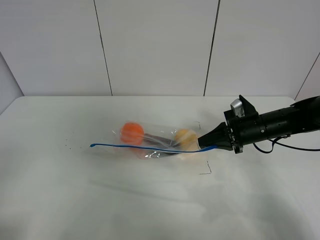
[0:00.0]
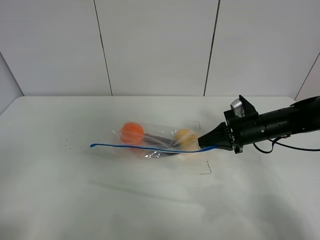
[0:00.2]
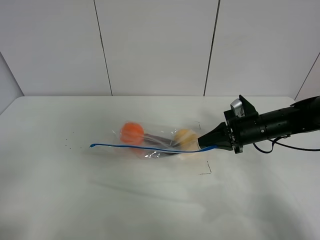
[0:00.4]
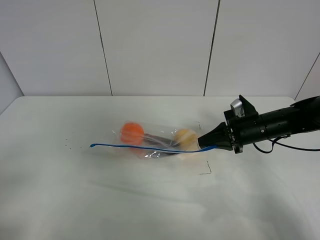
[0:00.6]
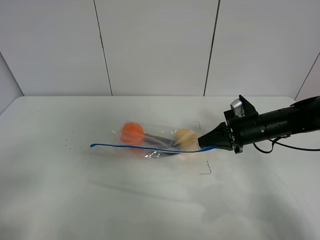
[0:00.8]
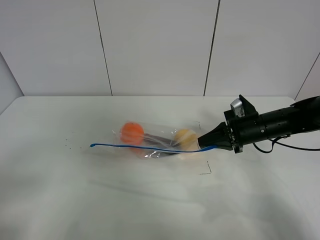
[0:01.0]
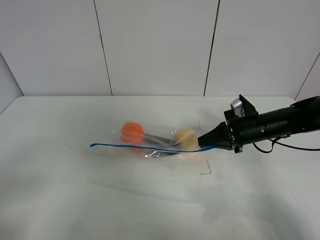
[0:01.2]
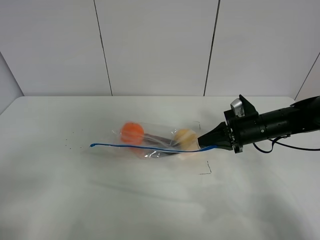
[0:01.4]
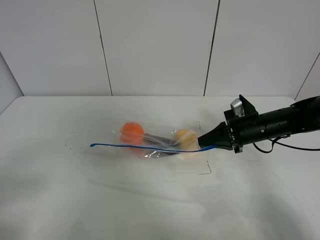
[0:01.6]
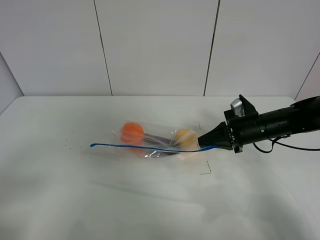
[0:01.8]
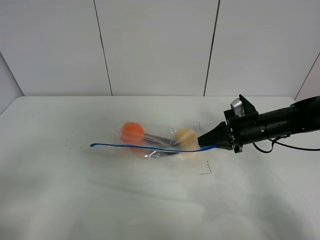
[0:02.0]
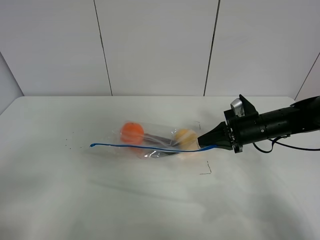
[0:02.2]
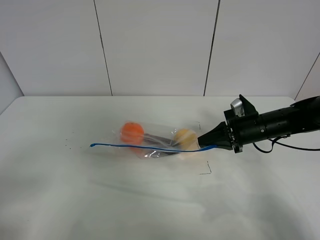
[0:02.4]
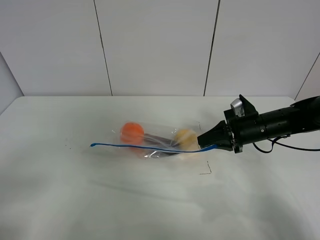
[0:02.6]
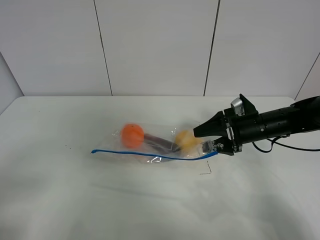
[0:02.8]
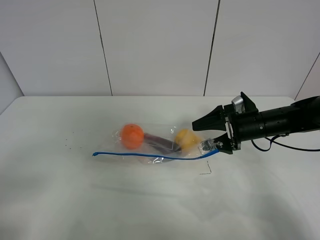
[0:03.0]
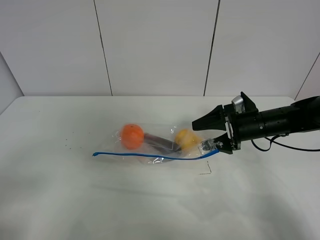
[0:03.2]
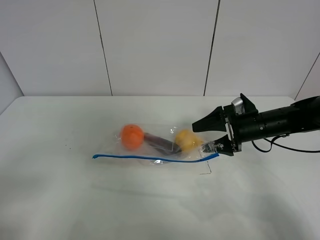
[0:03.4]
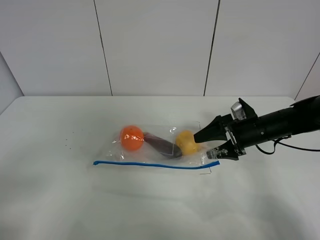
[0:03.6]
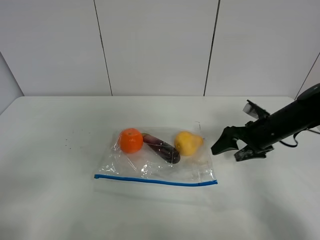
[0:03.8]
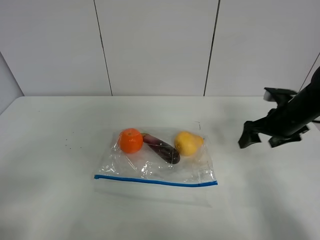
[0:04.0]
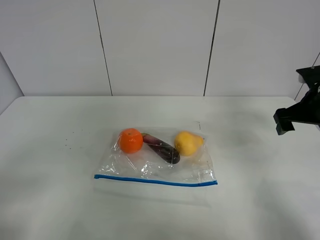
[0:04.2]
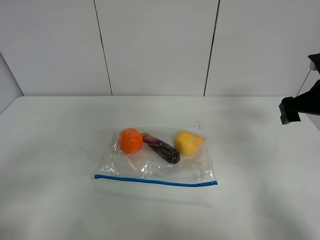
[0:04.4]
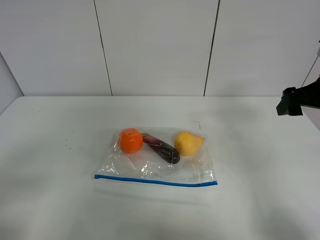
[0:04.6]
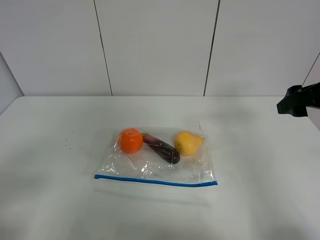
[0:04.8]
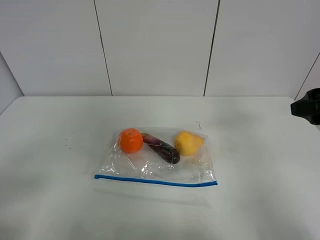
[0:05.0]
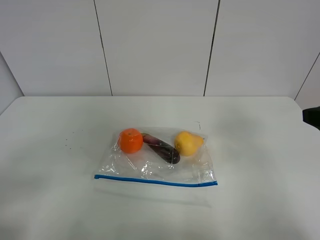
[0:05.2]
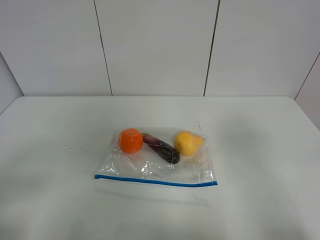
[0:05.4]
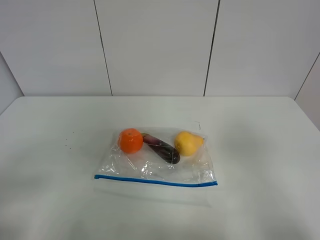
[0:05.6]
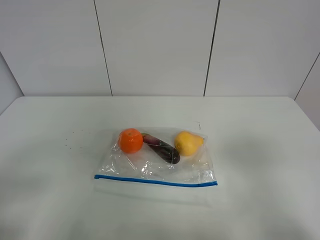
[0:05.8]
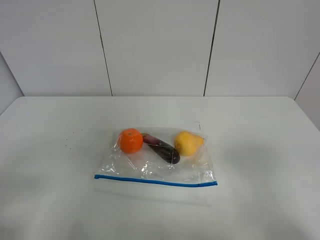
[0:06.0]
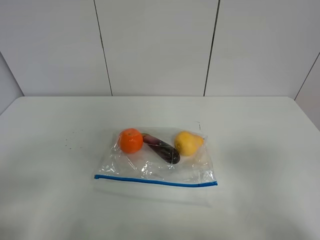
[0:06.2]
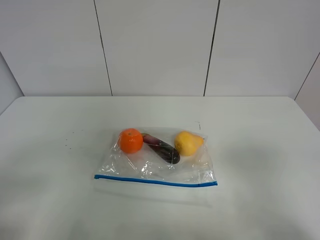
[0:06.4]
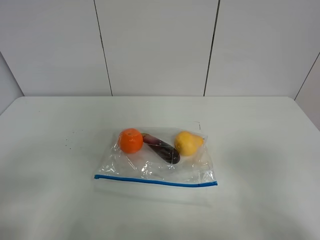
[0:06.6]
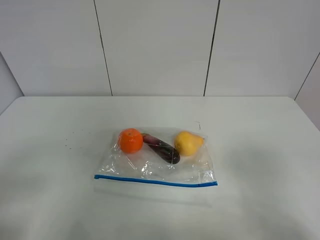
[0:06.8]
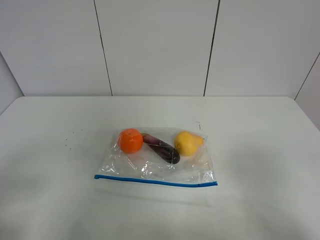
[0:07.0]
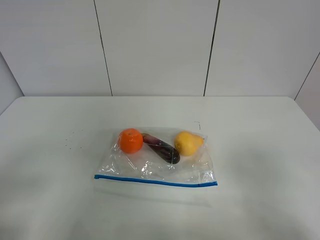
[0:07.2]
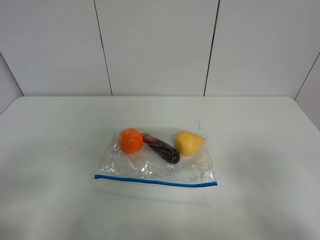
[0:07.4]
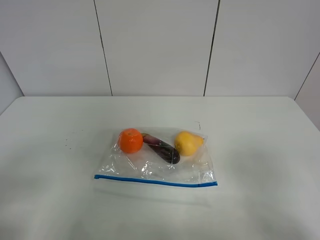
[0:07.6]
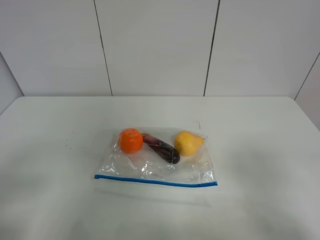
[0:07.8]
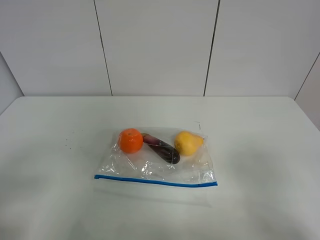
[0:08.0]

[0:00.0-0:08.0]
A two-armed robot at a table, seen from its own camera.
Step, 0:00.0 to 0:04.0: Place the fruit bag with right gripper.
0:01.6 to 0:03.2: The right gripper opens its fingers.
0:03.2 to 0:04.8: The right gripper heads upward, backward and to the right, covering about 20 cm.
0:04.8 to 0:06.4: The right gripper heads backward, covering approximately 25 cm.

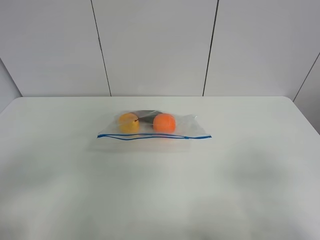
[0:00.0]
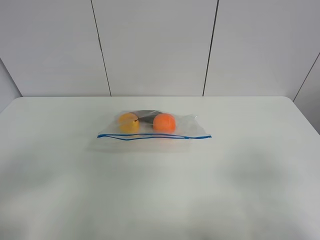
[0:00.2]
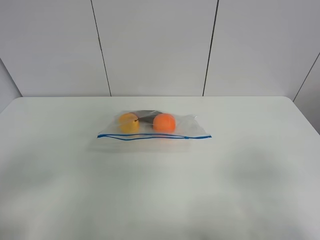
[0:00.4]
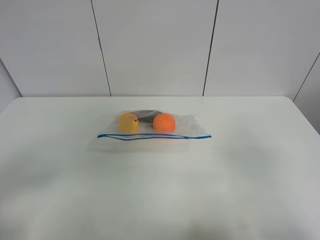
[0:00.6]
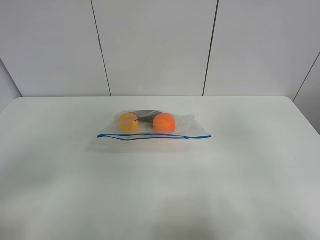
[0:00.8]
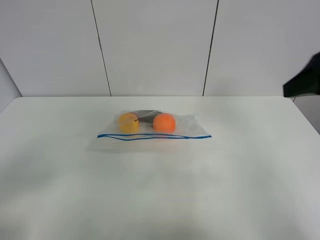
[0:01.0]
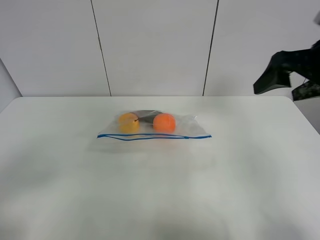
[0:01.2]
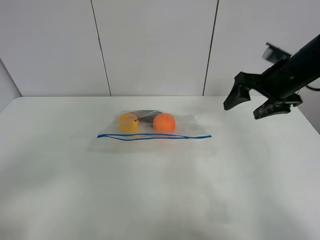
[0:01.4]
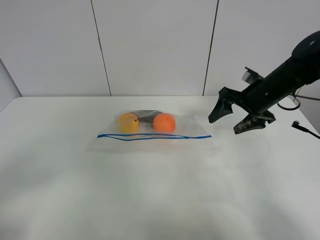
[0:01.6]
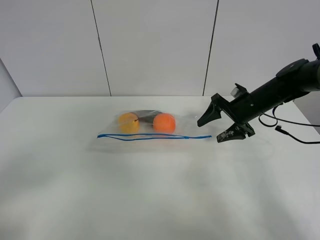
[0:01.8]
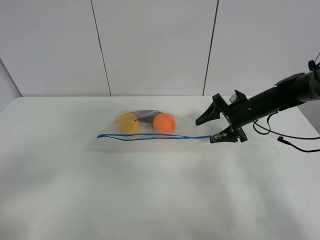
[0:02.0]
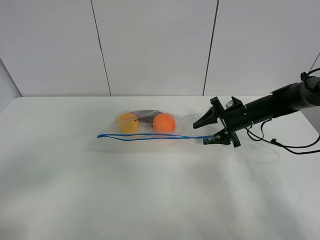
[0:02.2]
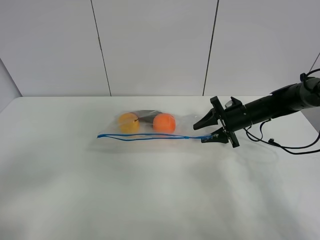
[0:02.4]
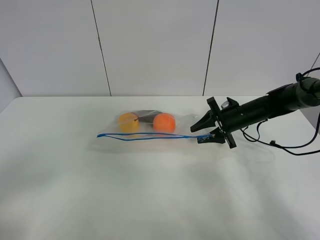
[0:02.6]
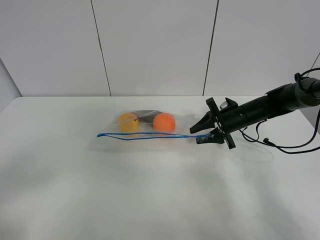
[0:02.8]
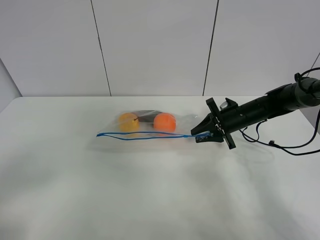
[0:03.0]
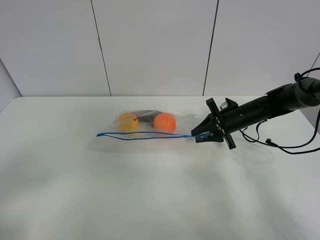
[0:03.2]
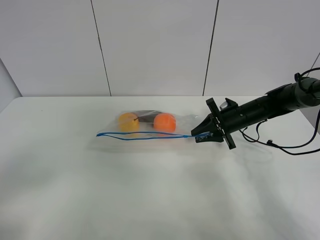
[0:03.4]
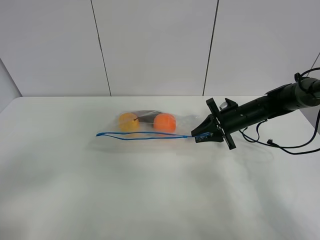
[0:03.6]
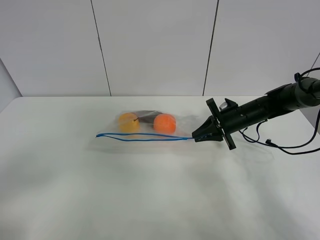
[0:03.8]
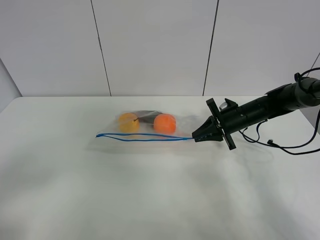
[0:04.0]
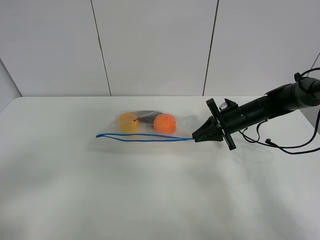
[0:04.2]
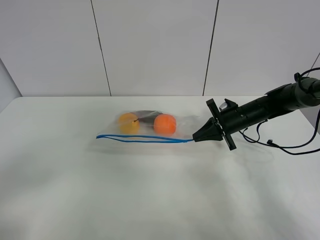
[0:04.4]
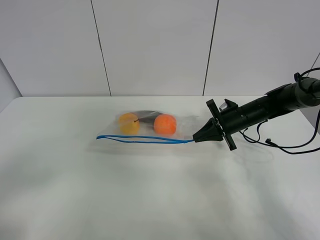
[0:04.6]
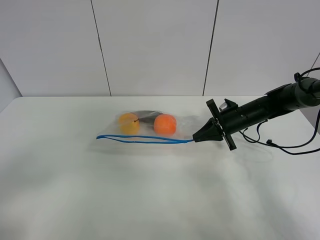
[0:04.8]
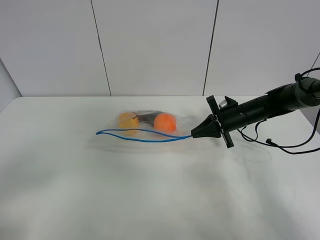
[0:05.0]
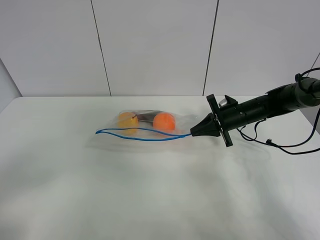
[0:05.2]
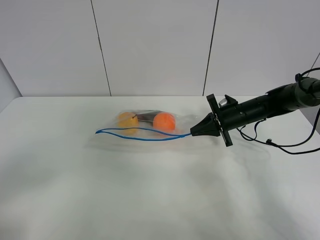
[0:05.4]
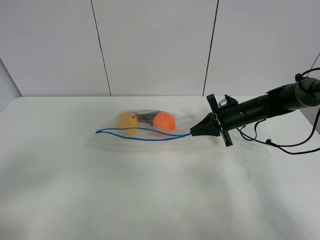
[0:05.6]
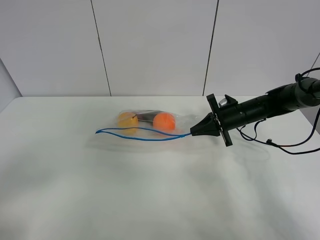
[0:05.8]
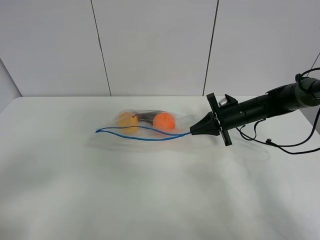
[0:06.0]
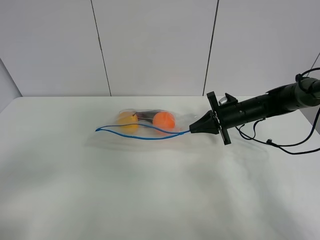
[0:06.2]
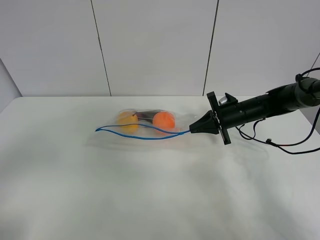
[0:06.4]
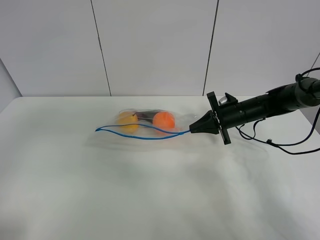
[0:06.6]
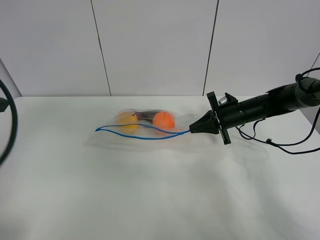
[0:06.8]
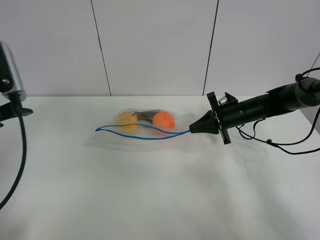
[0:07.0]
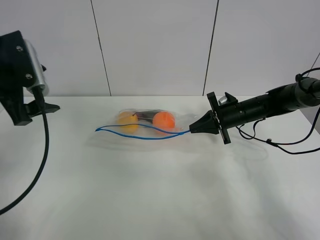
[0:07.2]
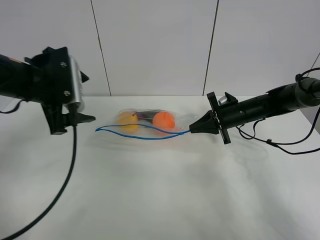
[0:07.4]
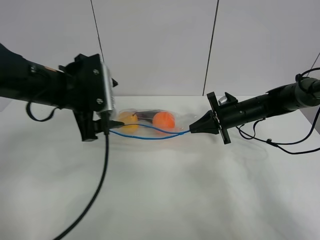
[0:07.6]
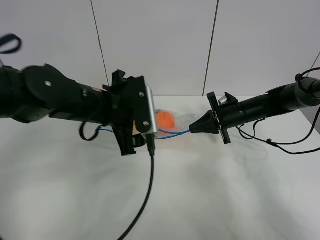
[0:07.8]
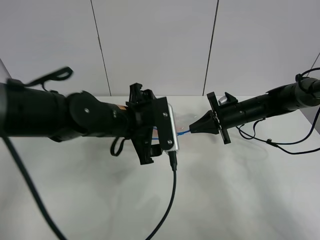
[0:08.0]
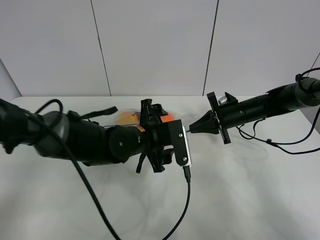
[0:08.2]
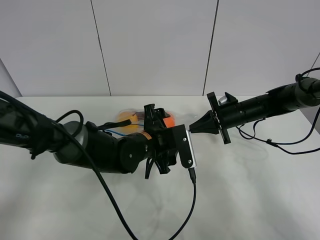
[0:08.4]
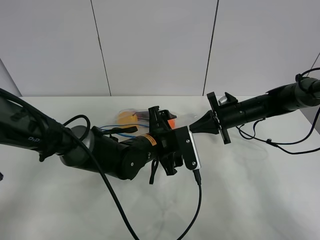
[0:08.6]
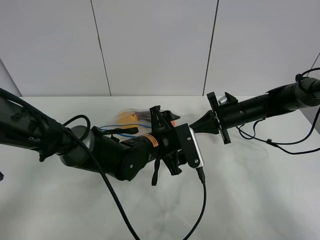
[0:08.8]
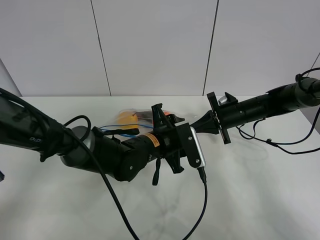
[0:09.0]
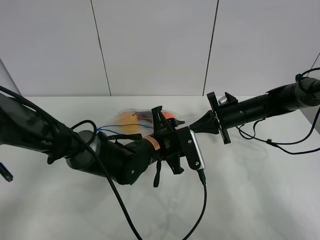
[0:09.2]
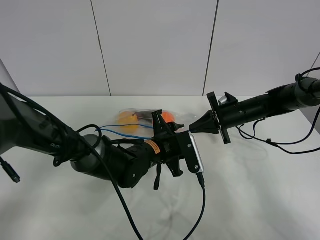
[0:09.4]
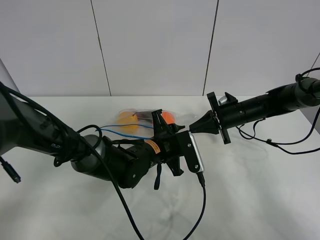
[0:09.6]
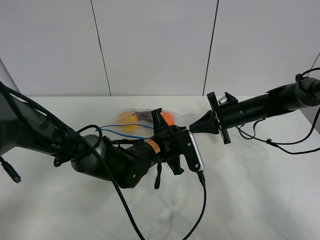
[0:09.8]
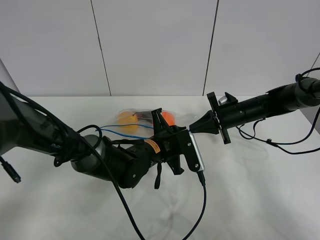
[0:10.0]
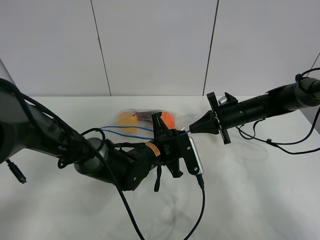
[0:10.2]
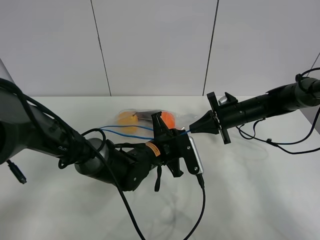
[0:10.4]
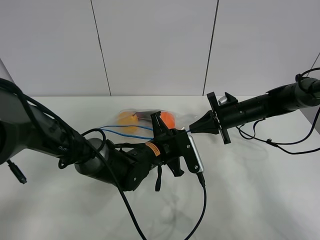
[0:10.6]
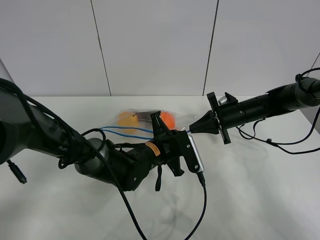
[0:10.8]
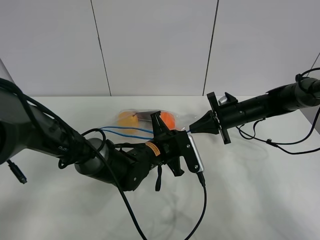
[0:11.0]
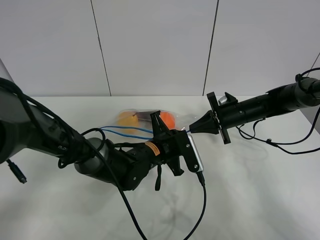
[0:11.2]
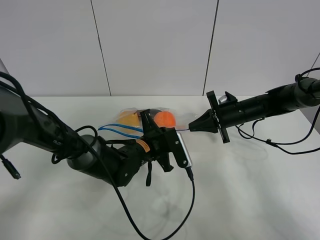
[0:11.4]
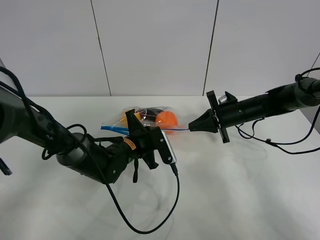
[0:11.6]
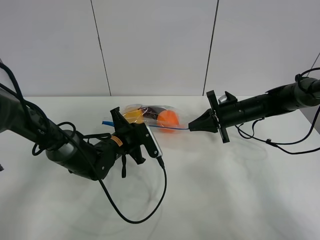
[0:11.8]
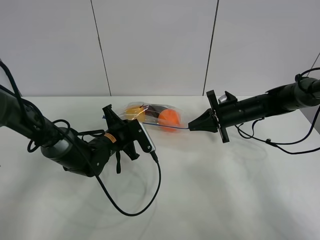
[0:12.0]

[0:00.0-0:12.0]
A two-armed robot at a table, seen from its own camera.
Step, 0:00.0 to 0:04.4: Grasp the fruit bag with right gripper.
Step, 0:04.6 to 0:05.2: Lift the fruit bag with your right gripper.
0:00.0 to 0:01.6: The right gripper shifts about 35 cm forward.
0:01.6 to 0:03.0: The right gripper is displaced downward by approximately 10 cm, and closes its fingers.
0:03.0 to 0:04.4: Neither gripper changes place.
0:04.4 to 0:06.0: The grippers stay close to where they were, moving slightly.
0:06.0 to 0:07.6: The left gripper heads forward and to the right, covering some 30 cm.
0:07.6 to 0:09.0: The left gripper moves downward and to the right, roughly 20 cm, and closes its fingers.
0:09.0 to 0:10.4: The left gripper closes its fingers.
0:10.4 to 0:12.0: The left gripper moves to the left, approximately 10 cm.

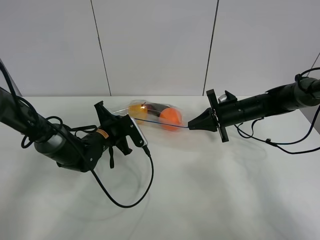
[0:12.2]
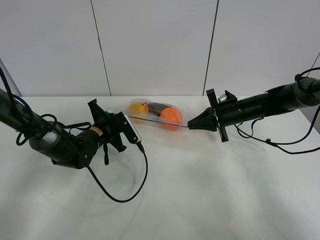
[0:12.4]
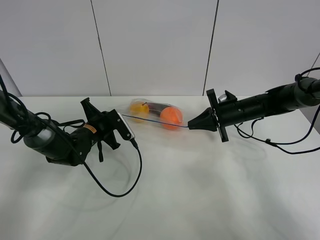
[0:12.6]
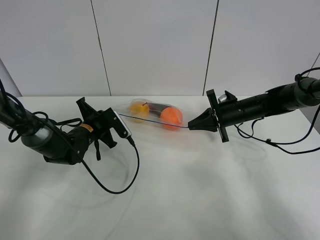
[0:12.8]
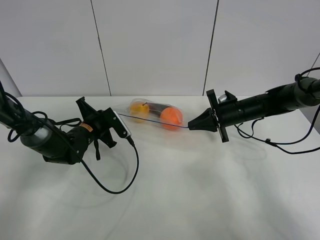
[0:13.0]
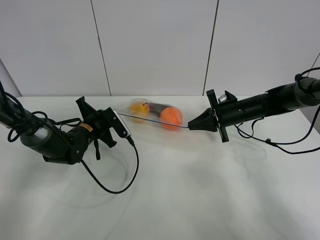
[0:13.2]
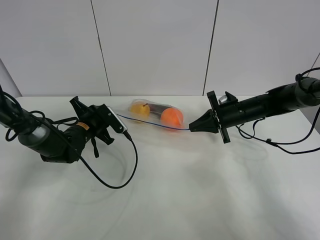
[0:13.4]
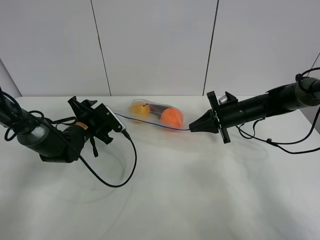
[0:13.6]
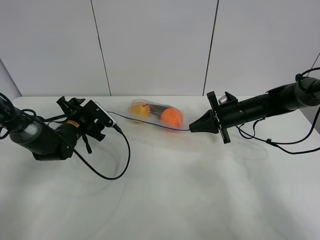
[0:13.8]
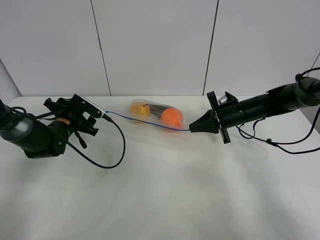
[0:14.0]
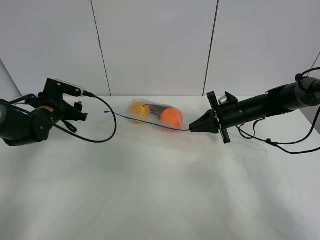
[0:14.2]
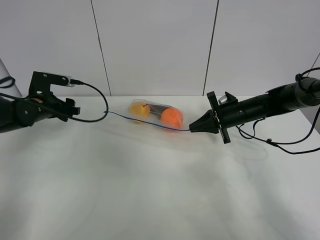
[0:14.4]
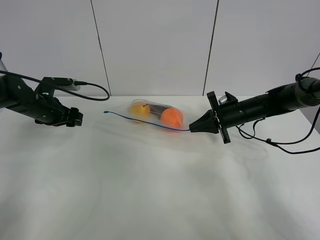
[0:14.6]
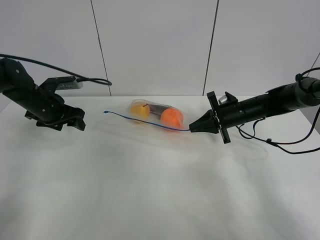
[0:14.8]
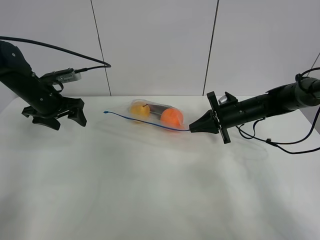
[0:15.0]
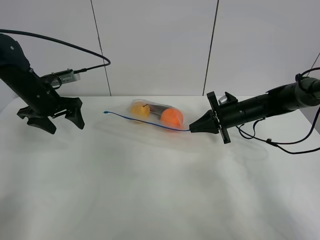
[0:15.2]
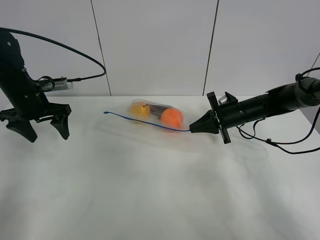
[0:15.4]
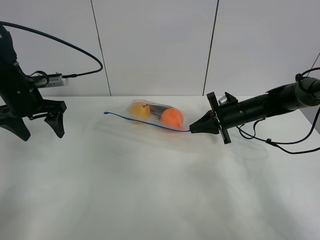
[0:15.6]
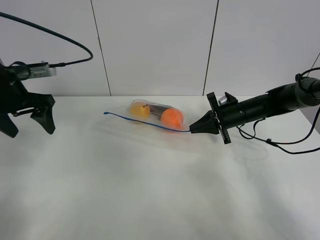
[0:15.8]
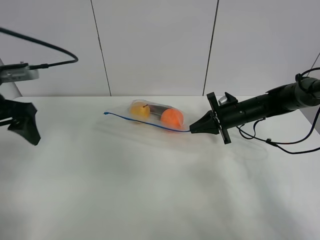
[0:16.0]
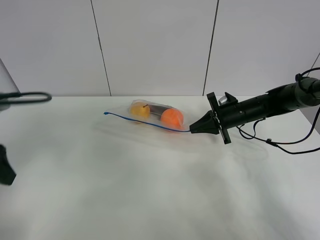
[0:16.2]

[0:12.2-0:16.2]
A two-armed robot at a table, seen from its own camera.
0:12.2 to 0:13.6: The left gripper heads to the left, covering about 5 cm, and opens.
0:13.6 to 0:14.8: The left gripper heads upward and to the left, covering about 10 cm.
0:14.8 to 0:16.2: The left gripper heads backward and upward, covering roughly 25 cm.
